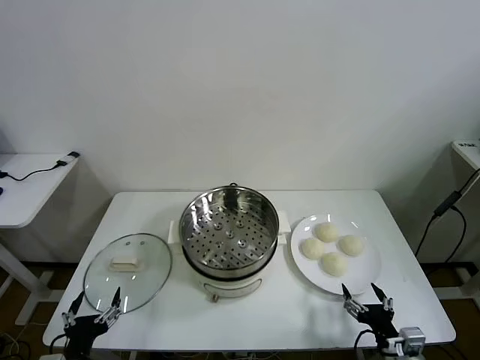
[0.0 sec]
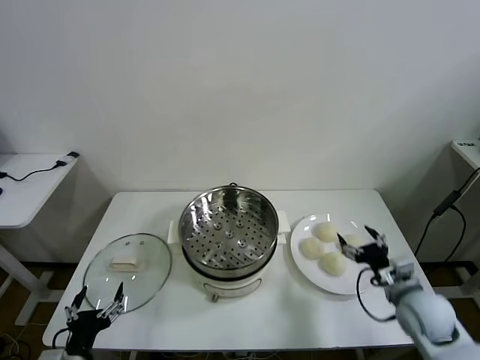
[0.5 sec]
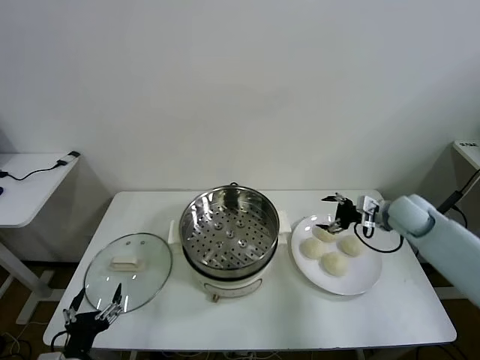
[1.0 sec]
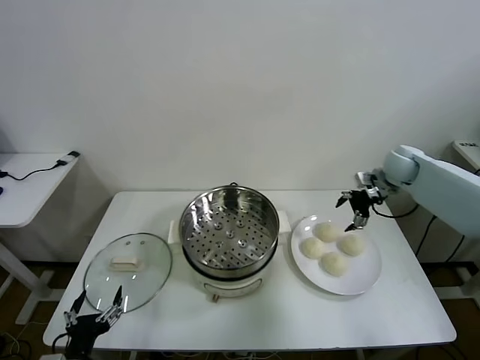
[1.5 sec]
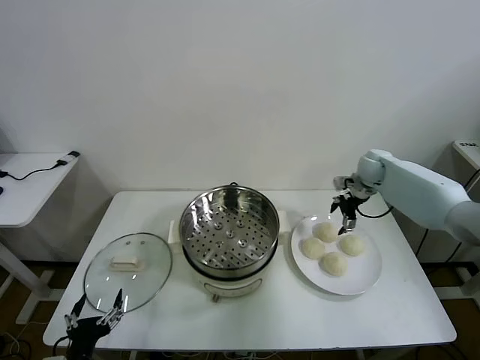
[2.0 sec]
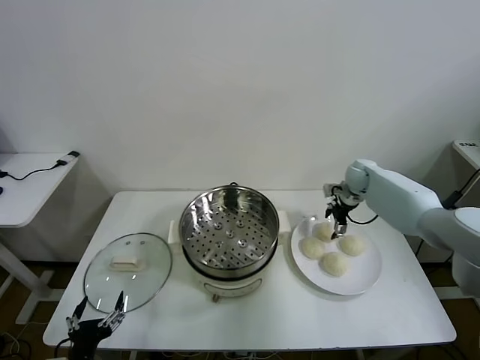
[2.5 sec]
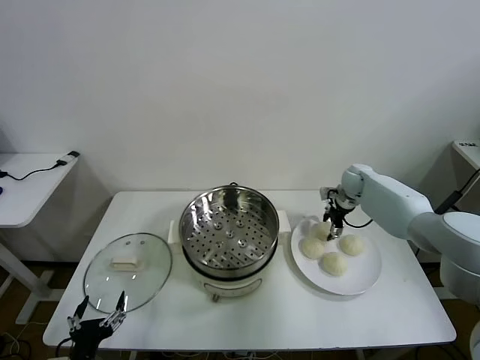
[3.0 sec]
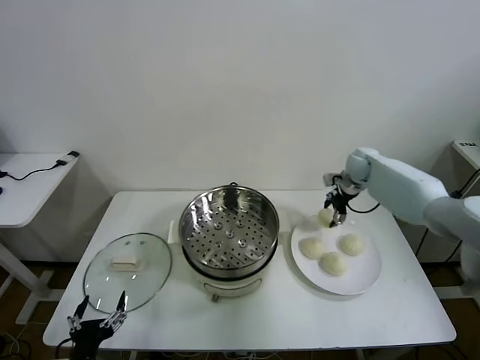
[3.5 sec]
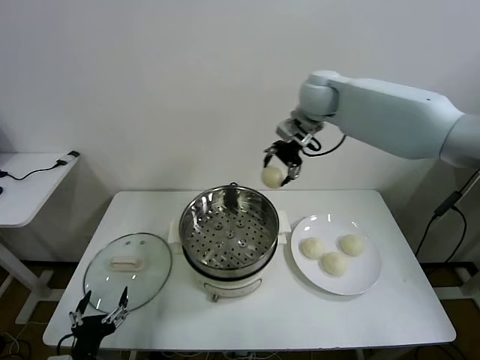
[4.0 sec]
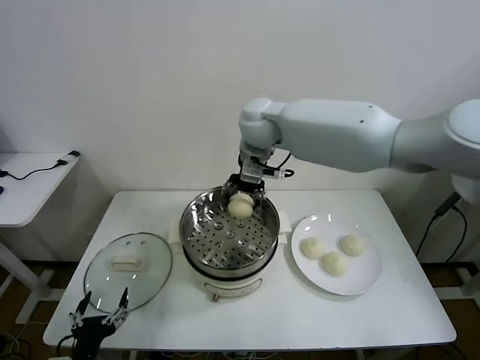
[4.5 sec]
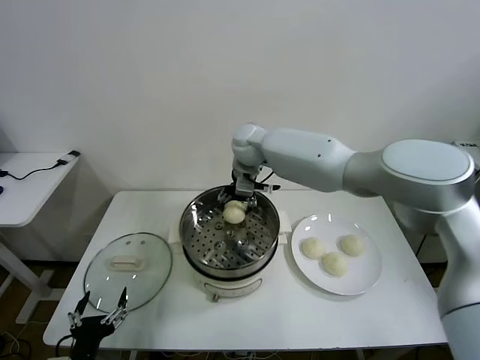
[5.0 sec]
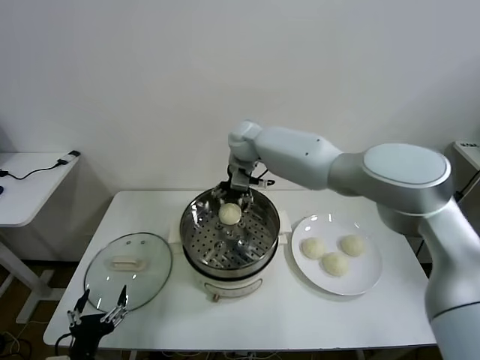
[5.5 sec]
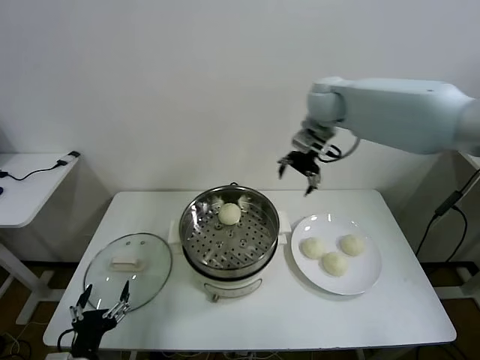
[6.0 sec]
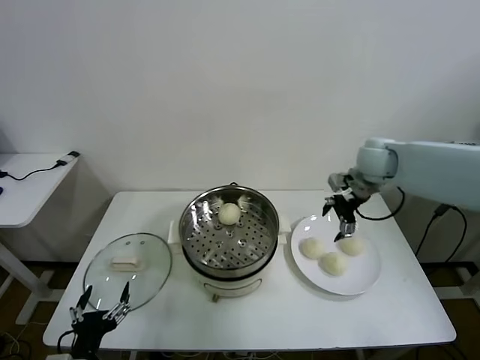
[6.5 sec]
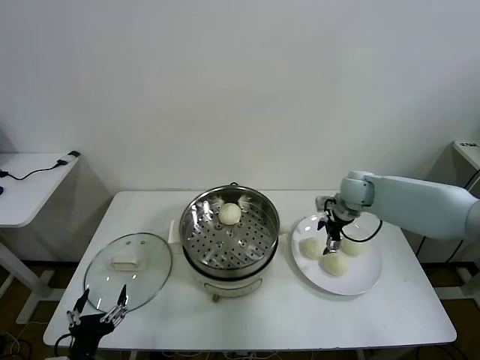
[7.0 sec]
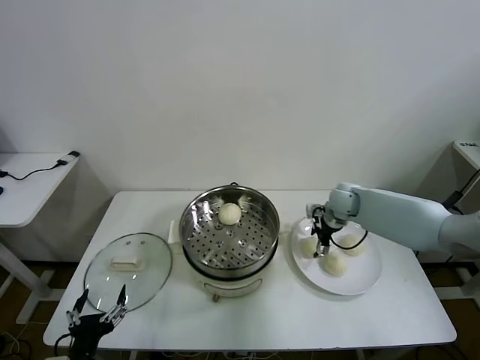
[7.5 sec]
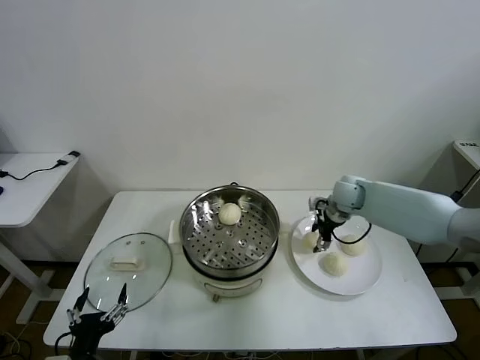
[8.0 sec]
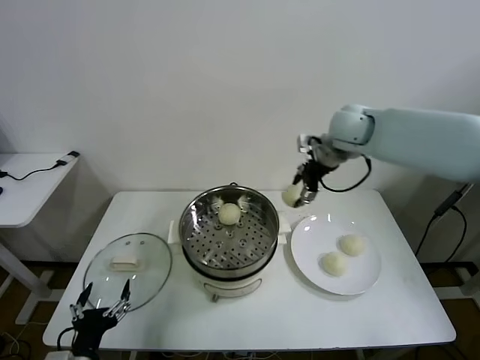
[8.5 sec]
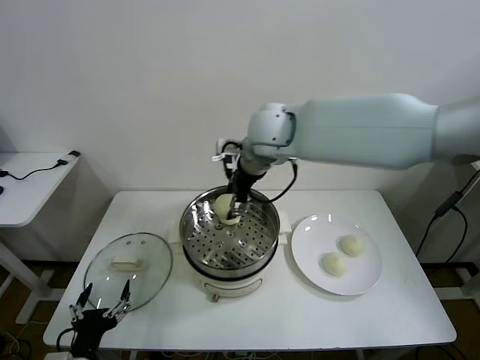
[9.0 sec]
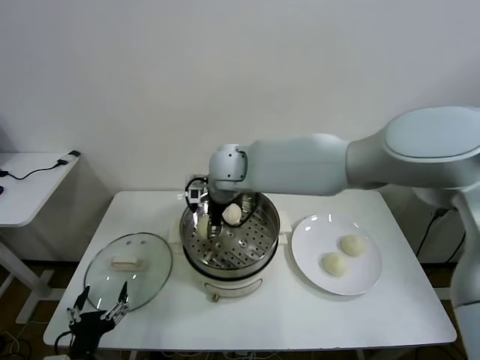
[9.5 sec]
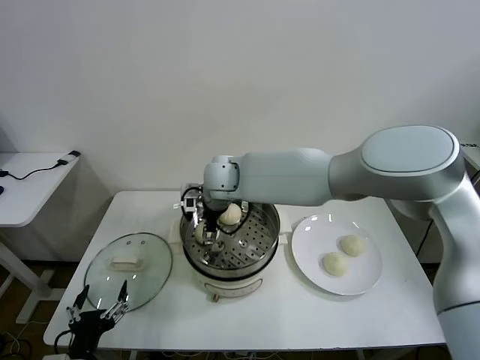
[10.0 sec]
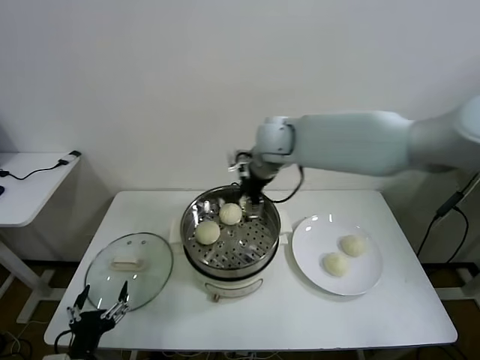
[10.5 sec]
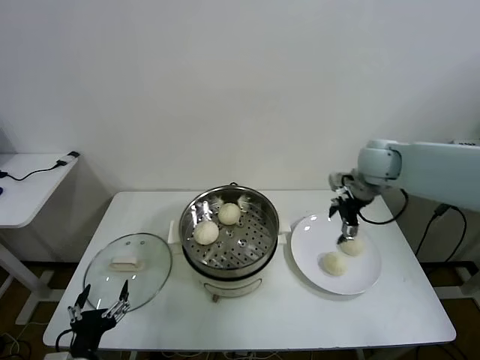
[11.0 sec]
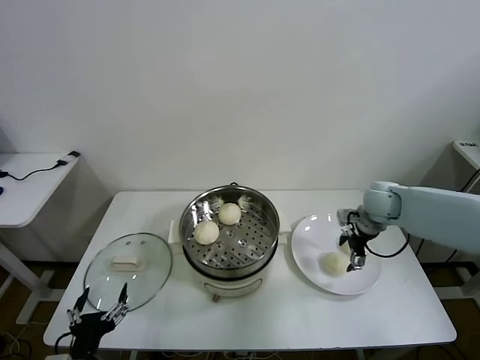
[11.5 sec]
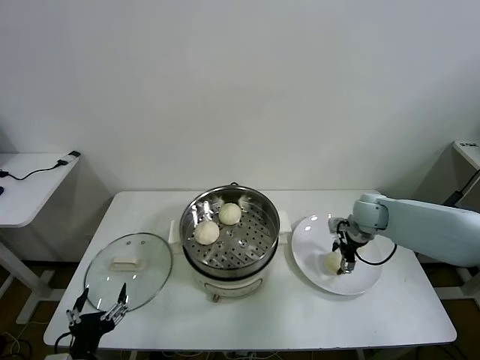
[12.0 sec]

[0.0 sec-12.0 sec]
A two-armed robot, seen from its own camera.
Task of the whole recording: take steamed baozi put them in steamer then cover it.
Step, 0.0 sec to 2.5 sec: Grasp the baozi in the plate with right gripper.
Step, 3.5 sec to 5.0 sec: Place the baozi on the steamer with right gripper.
Step, 5.5 sec to 7.5 sec: Grasp the baozi in the plate with right gripper.
Step, 8.0 sec to 10.0 sec: Place the baozi on the steamer with right gripper.
2.0 sec to 4.0 sec: The right gripper travels to the left and upward by about 35 cm, and closes up.
4.0 sec to 6.0 sec: The right gripper moves to the right, roughly 10 cm, and opens up.
6.0 sec to 8.0 sec: The right gripper goes about 20 cm downward, and closes.
8.0 sec to 10.0 sec: The right gripper shifts roughly 35 cm to the left, and opens.
10.0 sec to 12.0 sec: The right gripper heads to the right, covering some 35 cm, and closes.

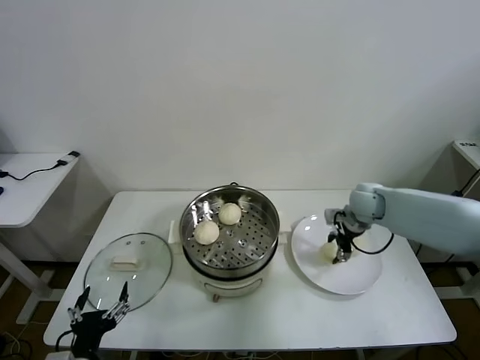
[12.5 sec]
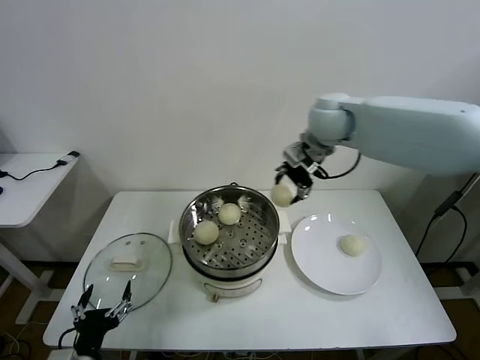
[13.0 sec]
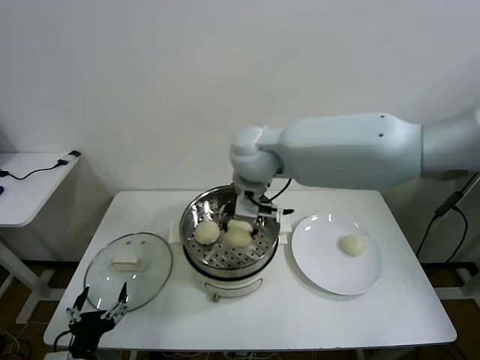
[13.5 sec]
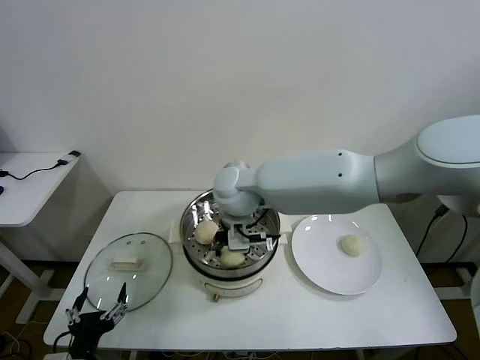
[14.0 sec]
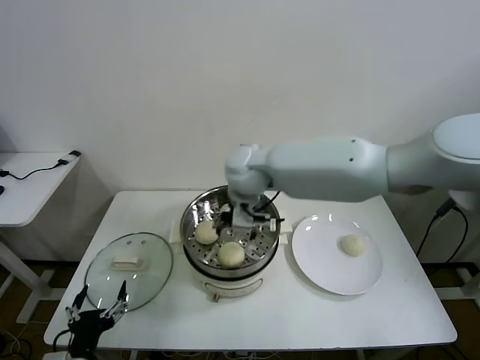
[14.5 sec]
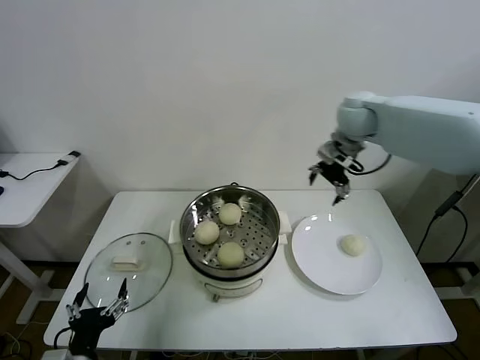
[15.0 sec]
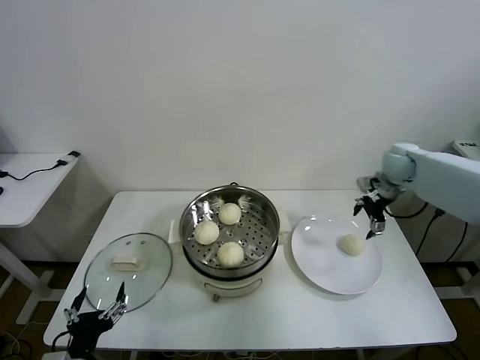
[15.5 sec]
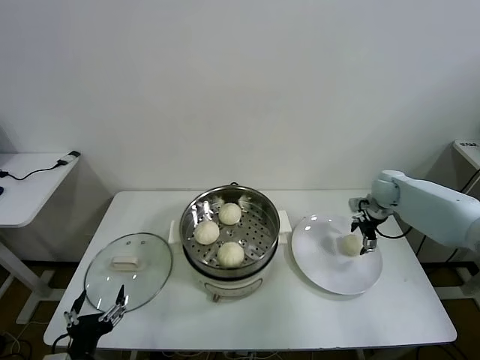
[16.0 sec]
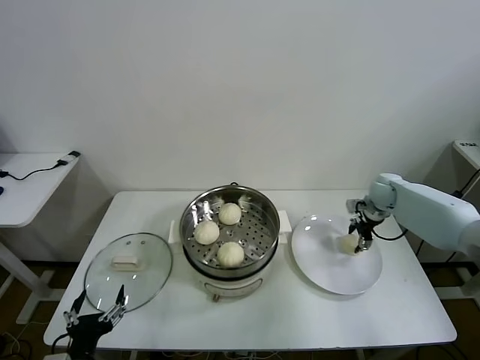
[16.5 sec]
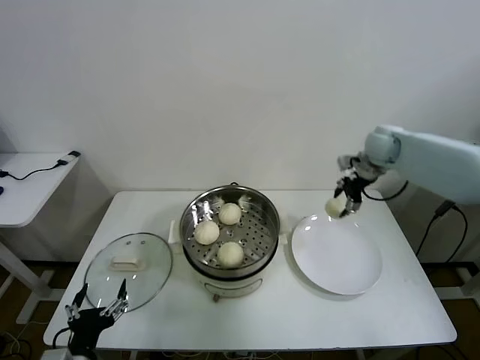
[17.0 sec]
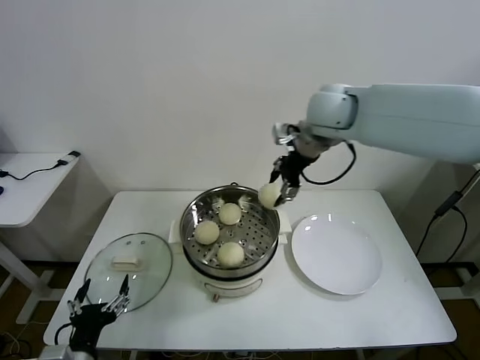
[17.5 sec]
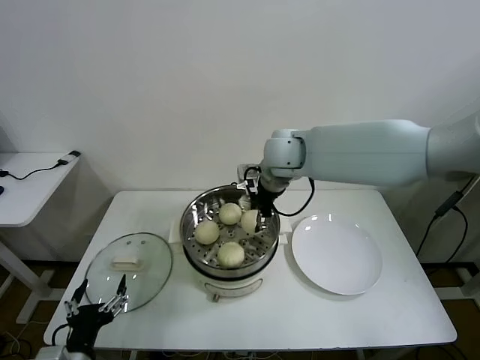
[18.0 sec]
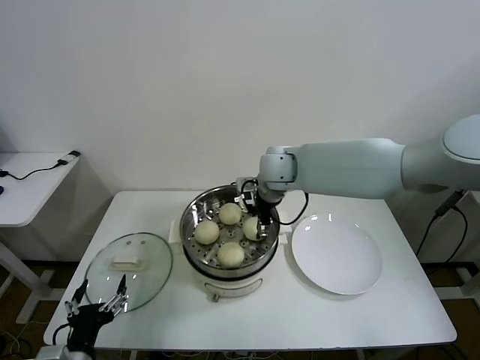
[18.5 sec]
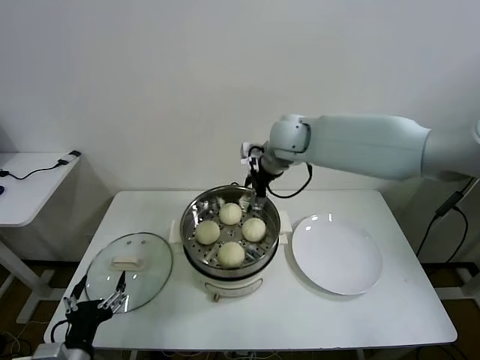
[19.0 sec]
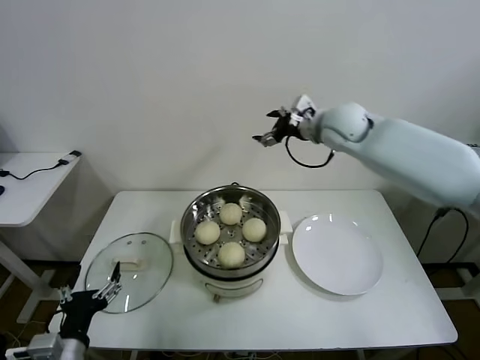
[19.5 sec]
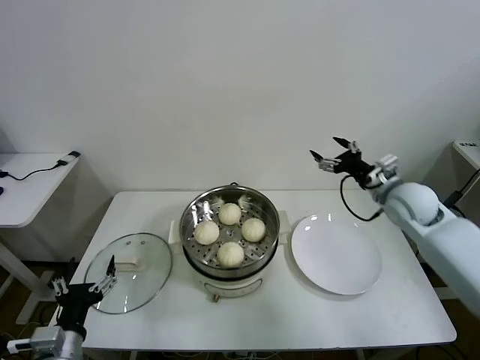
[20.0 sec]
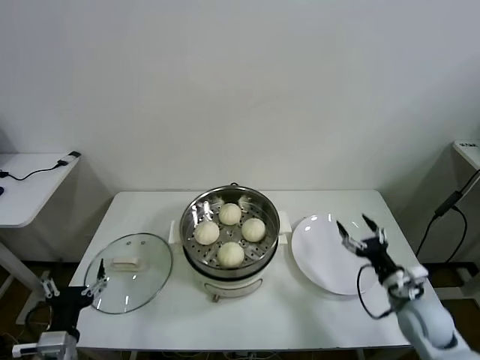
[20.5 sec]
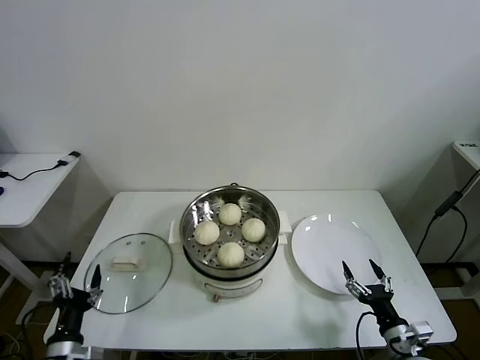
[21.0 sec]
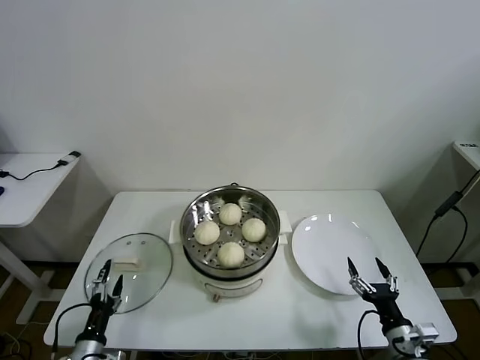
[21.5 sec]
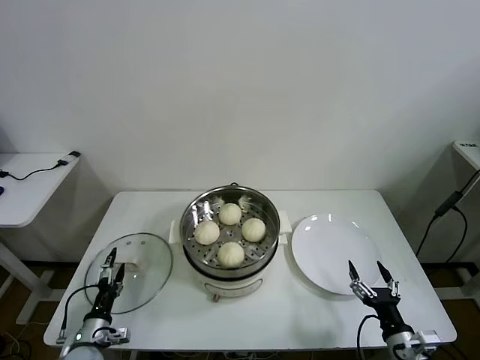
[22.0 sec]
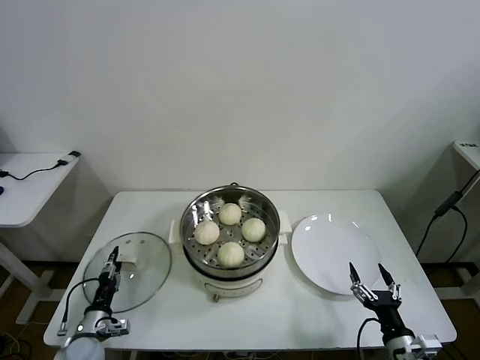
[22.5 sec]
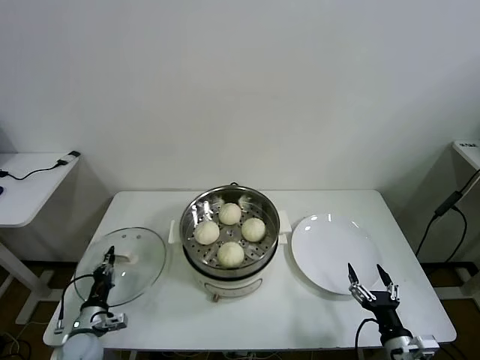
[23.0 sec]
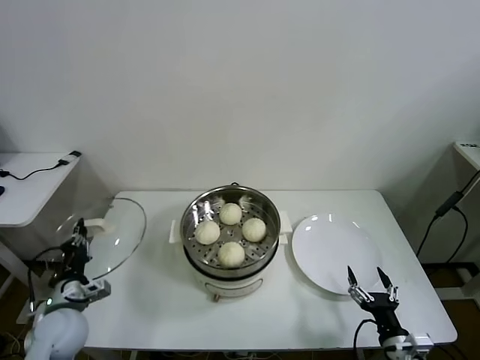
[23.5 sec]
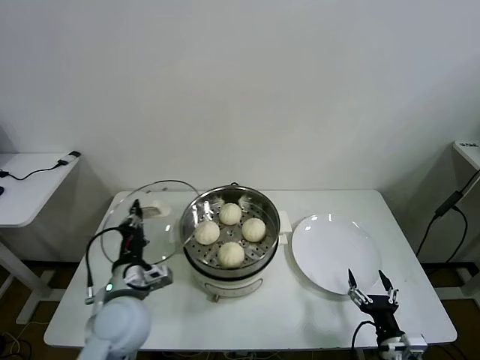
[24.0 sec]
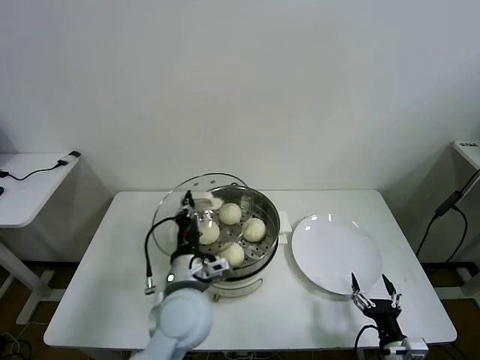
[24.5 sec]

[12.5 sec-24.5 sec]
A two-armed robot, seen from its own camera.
Task of the whole recording: take steamed baozi put them in steamer then cover it.
Step, 12.5 sec to 14.0 sec: Place the baozi on the steamer with right gripper.
Step, 14.5 sec to 16.0 sec: Grasp the baozi in the plate with right gripper.
Step, 16.5 sec to 18.5 sec: Place the baozi on the steamer with right gripper.
Step, 19.0 sec to 22.5 sec: Grasp the pot lid with left gripper.
12.5 sec to 14.5 sec: The right gripper goes some 30 cm to the left and upward, and opens.
14.5 sec to 16.5 sec: The right gripper moves to the right and downward, approximately 40 cm, and closes its fingers.
16.5 sec to 18.5 sec: The right gripper heads to the left and upward, covering about 35 cm.
18.5 sec to 20.5 sec: The right gripper moves to the right, backward and downward, about 40 cm, and opens up.
20.5 sec to 22.5 sec: The right gripper is displaced backward by about 15 cm; the left gripper moves downward and forward, approximately 20 cm, and closes up.
22.5 sec to 24.5 sec: The left gripper shifts roughly 35 cm to the right and upward, and closes its fingers.

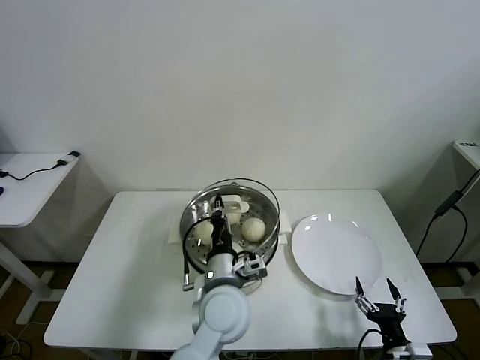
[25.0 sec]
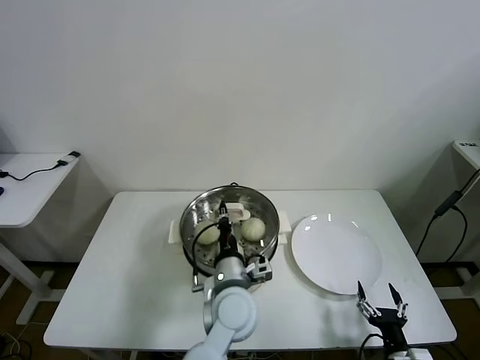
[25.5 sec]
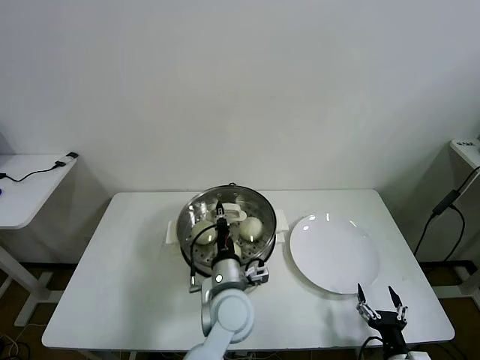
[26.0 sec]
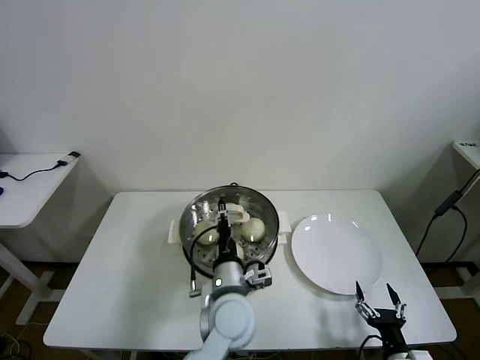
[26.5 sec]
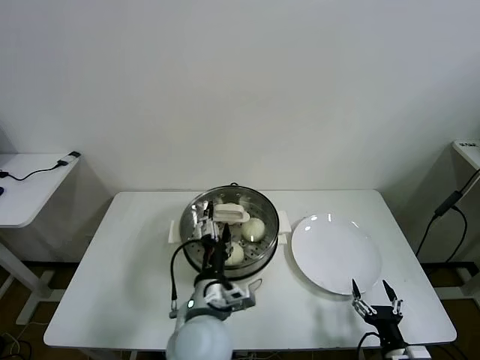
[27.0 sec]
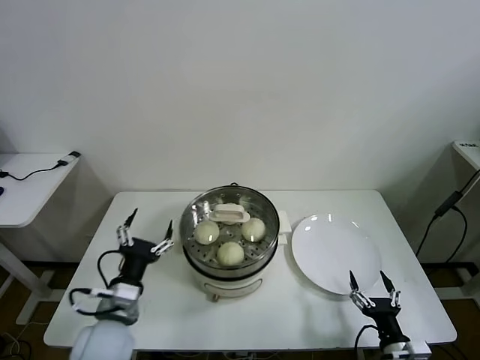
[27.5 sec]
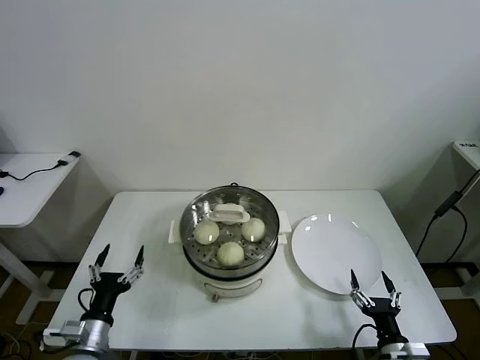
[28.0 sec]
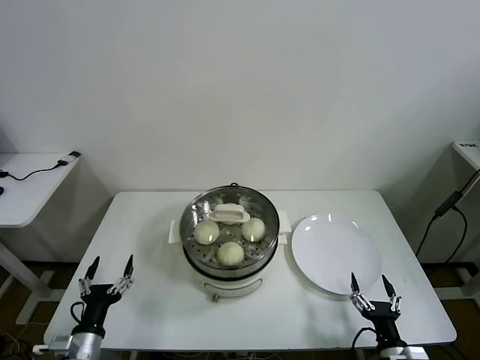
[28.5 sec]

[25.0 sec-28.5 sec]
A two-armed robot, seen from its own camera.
Task of the whole recording: take steamed baozi put them in steamer then cover it.
25.0 sec to 27.0 sec: The left gripper opens its fingers.
27.0 sec to 28.5 sec: The left gripper heads to the left and downward, covering about 30 cm.
